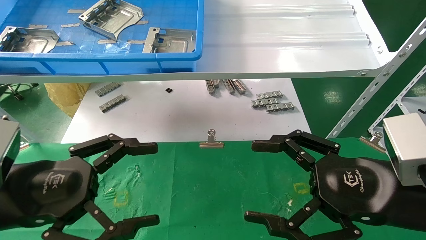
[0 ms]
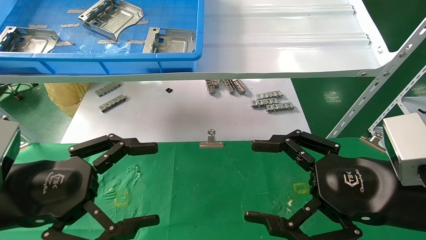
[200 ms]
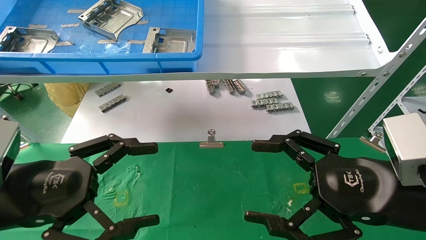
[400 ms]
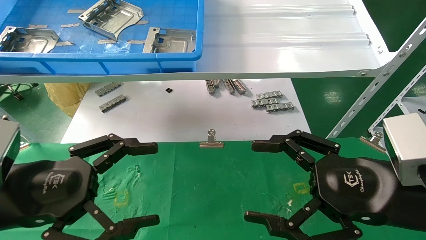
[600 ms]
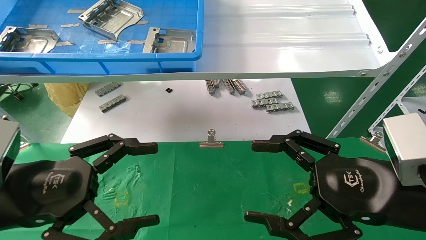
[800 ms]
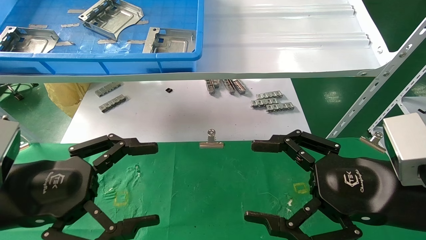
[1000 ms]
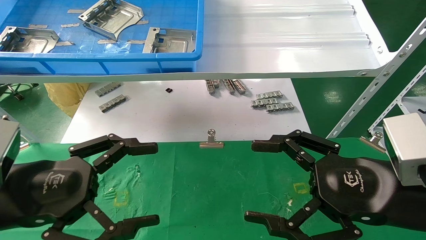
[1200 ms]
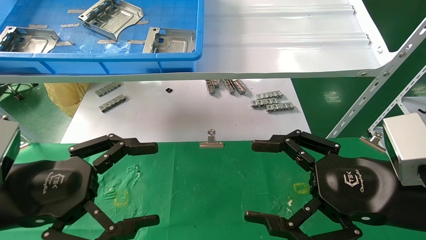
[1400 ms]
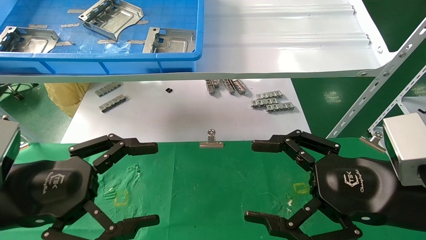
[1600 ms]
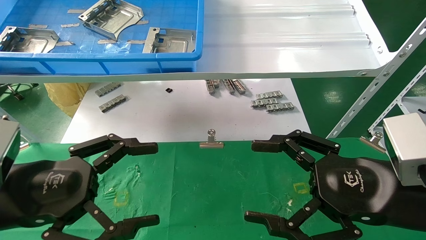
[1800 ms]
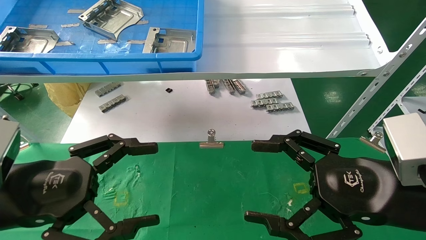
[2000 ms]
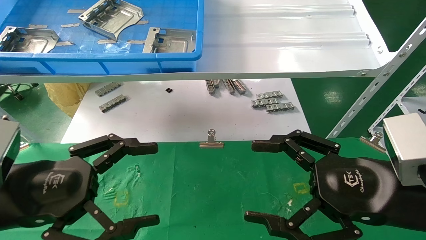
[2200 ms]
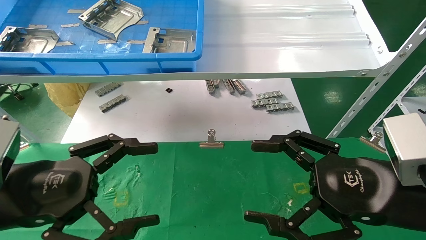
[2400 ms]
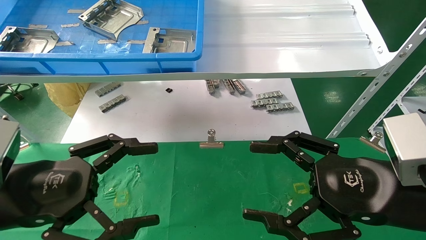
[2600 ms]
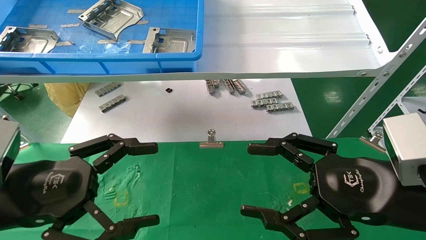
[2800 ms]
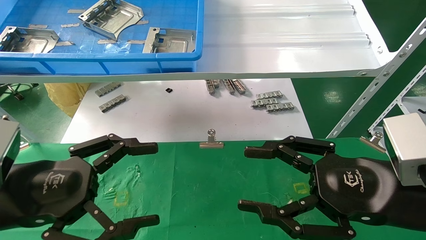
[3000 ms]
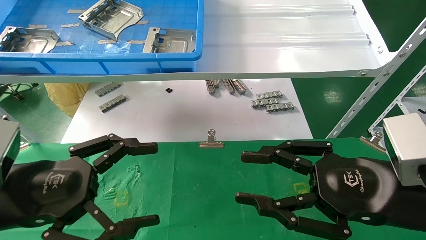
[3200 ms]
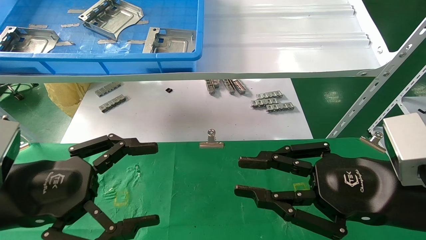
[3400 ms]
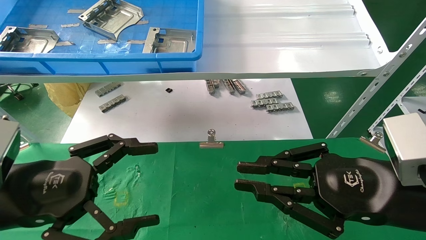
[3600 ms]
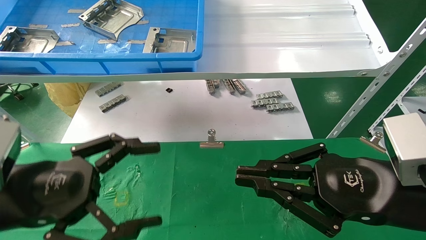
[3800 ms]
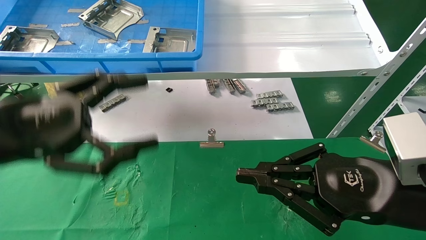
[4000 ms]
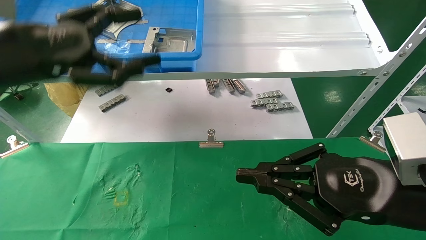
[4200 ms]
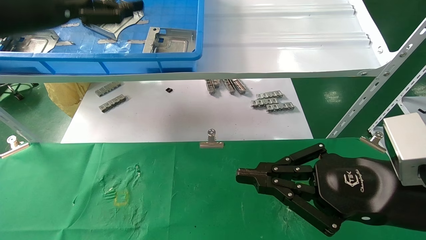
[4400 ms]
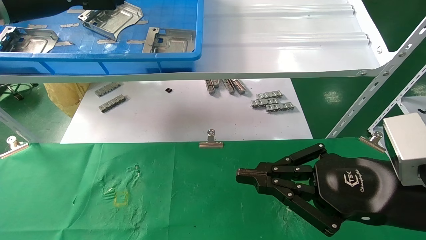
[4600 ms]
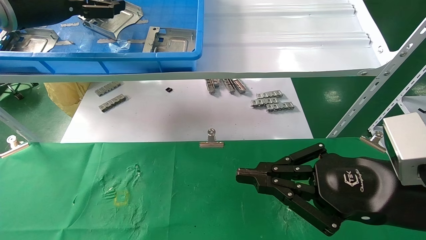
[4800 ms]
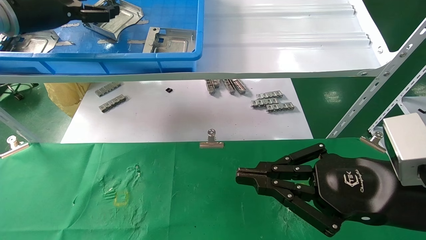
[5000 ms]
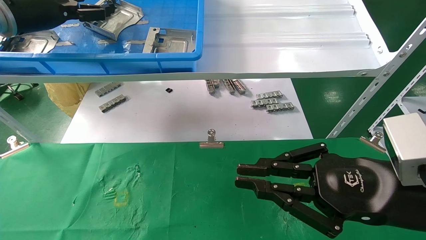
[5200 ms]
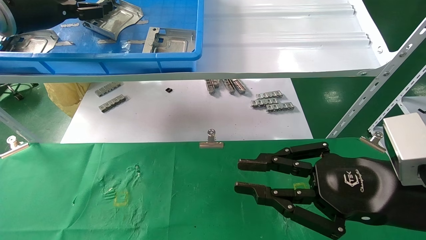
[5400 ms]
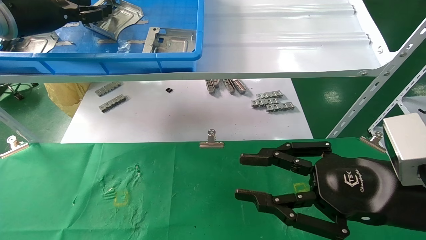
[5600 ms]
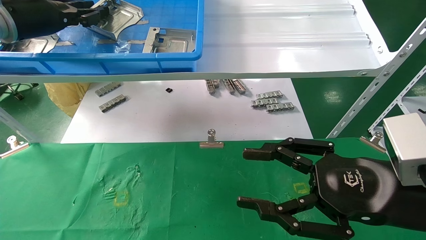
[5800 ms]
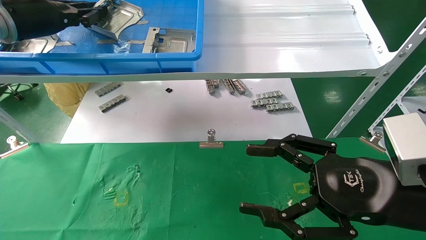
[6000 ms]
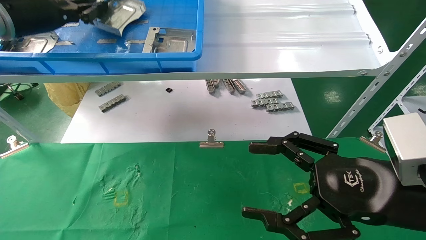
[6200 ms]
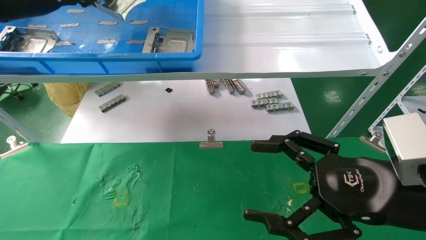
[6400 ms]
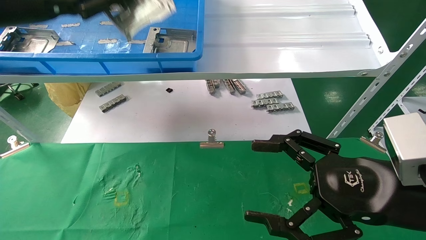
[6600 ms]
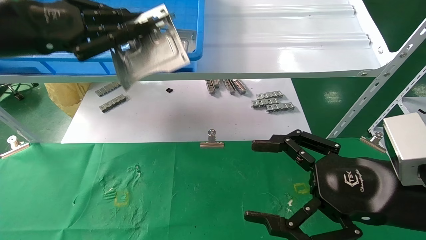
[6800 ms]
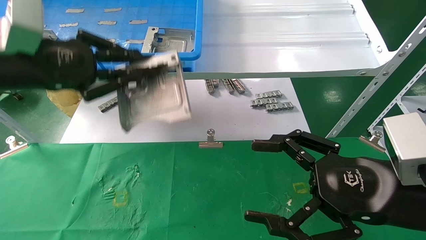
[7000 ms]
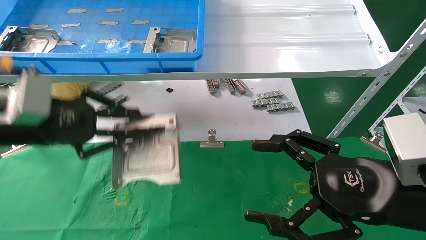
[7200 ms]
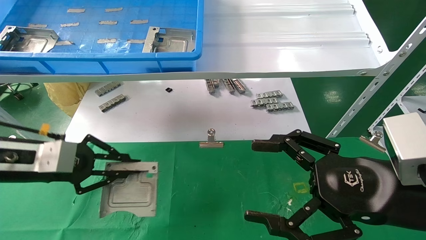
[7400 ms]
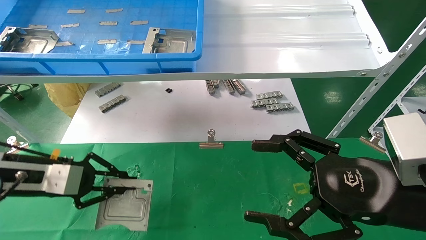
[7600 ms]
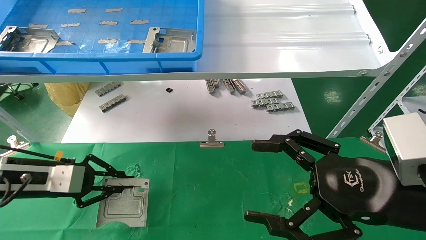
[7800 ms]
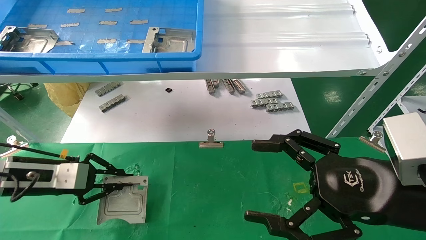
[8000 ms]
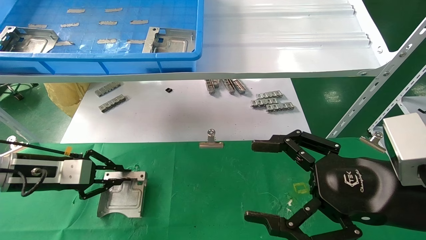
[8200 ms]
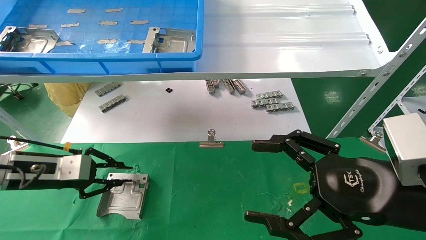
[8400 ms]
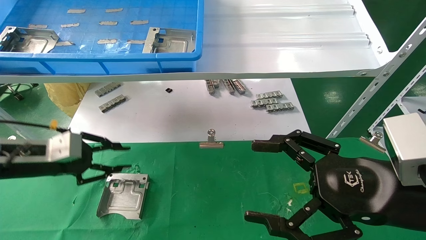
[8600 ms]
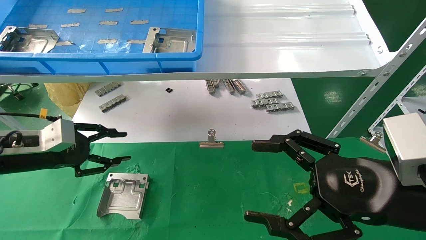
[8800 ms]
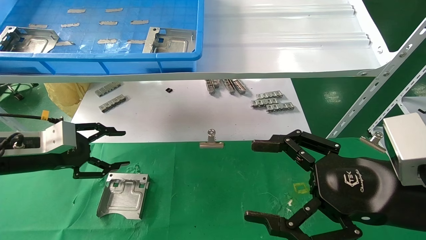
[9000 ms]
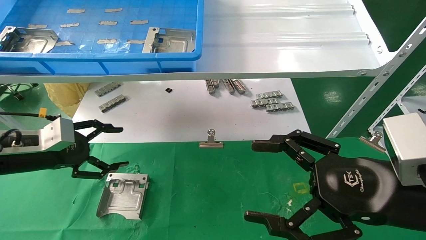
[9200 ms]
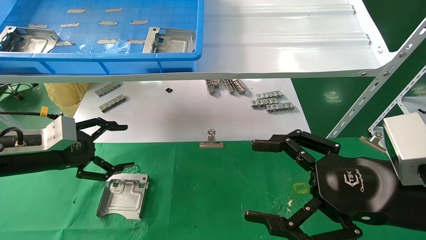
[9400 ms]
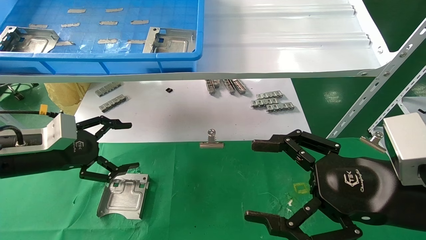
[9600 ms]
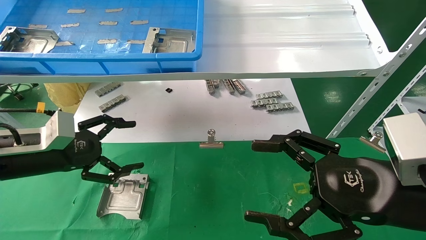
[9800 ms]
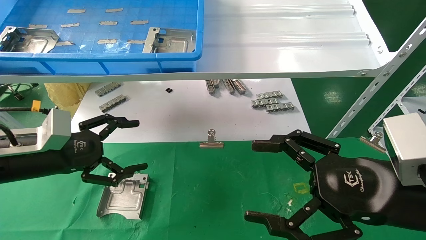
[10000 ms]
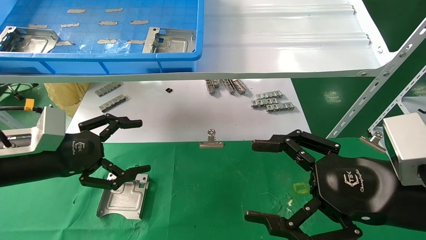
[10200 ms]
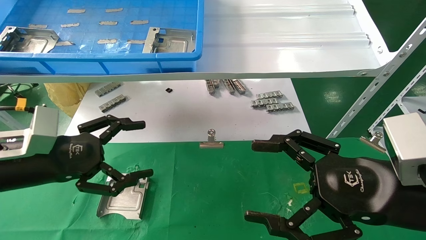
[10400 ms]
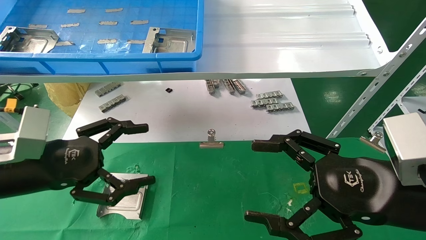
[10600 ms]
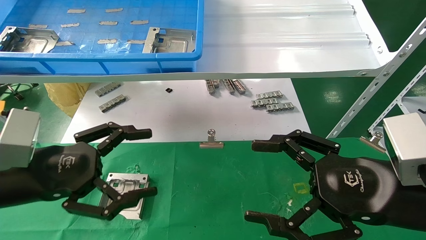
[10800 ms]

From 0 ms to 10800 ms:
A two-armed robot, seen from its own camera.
Task of the whole recording: use the mechanical arm to pick up the parts and place them on the table.
Step, from 4200 ms to 6000 ms: Pick up the hard drive bracket from the feeding area.
Step, from 6200 ms to 8200 ms: Place the hard drive bracket into the box.
From 0 ms to 3000 ms: Both grippers stay put.
From 3000 ms to 4600 ms: The right gripper closes its fingers; the left gripper is displaced upward and forward by roughly 30 cm.
From 4600 ms to 6200 ms: The right gripper opens up, while the left gripper closes up.
From 6200 ms to 7800 ms: The left gripper shifts approximately 25 cm downward.
From 7800 ms to 9200 ms: The left gripper opens up.
From 9200 ms to 10800 ms: The left gripper travels backward and to the right by some 15 cm.

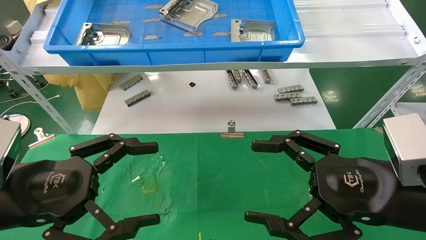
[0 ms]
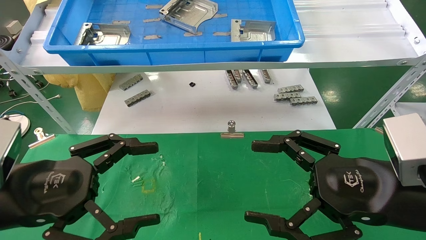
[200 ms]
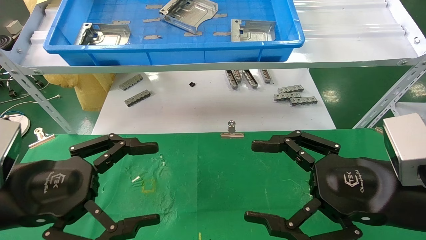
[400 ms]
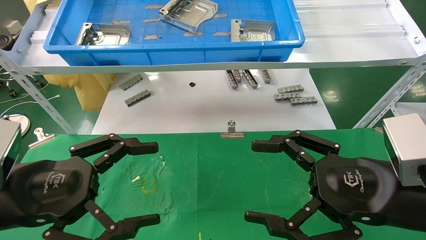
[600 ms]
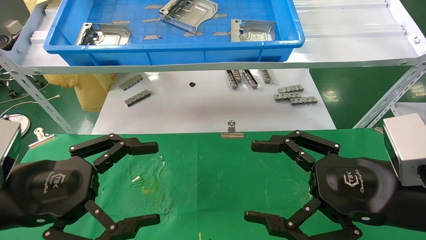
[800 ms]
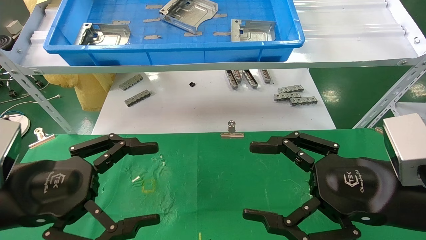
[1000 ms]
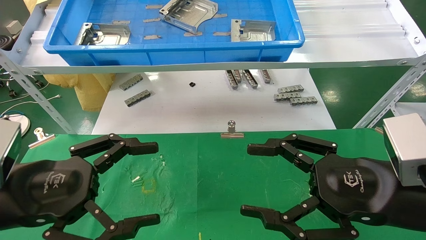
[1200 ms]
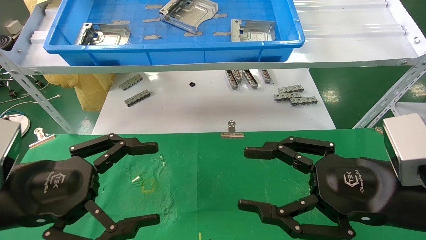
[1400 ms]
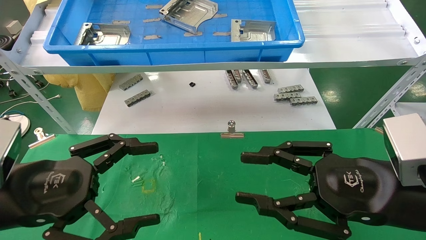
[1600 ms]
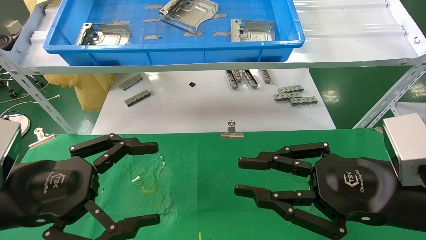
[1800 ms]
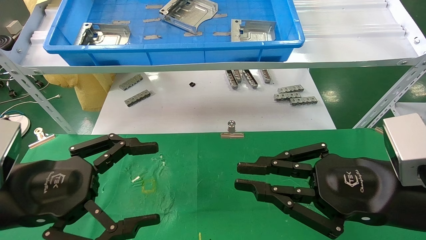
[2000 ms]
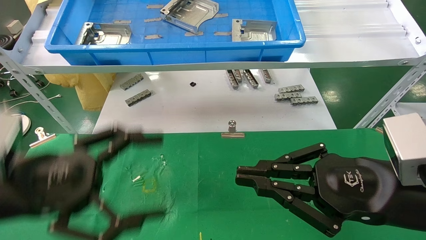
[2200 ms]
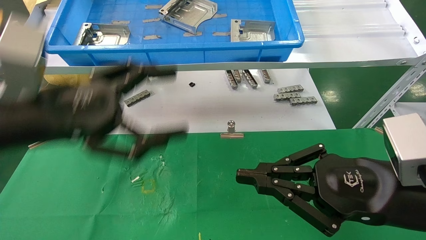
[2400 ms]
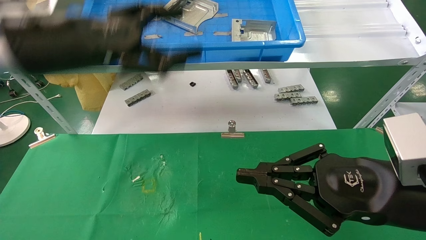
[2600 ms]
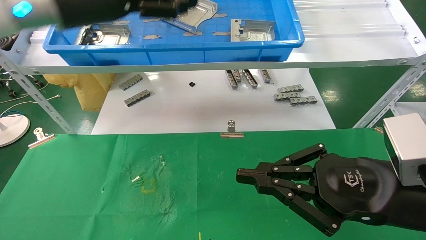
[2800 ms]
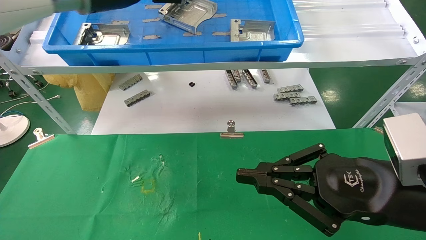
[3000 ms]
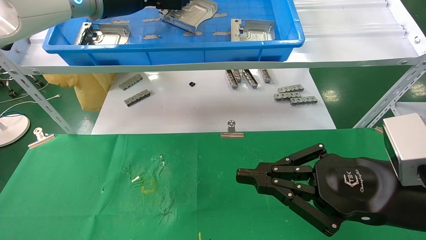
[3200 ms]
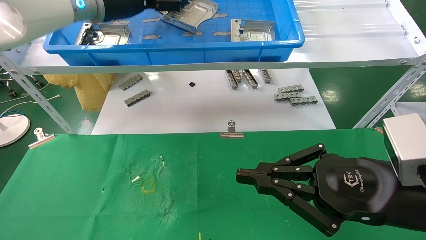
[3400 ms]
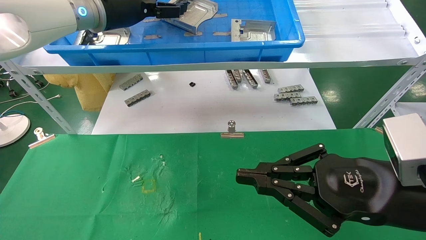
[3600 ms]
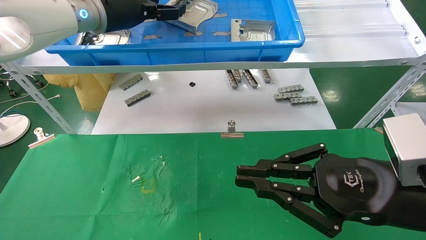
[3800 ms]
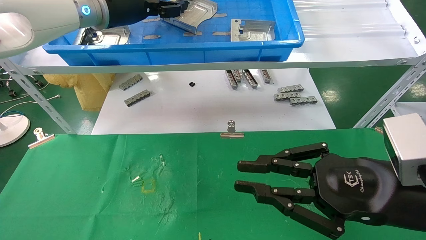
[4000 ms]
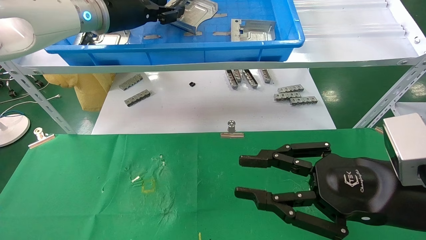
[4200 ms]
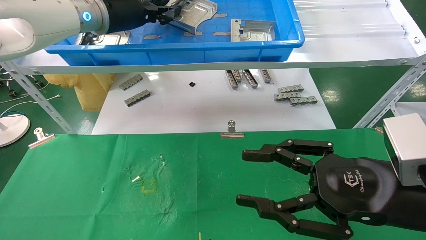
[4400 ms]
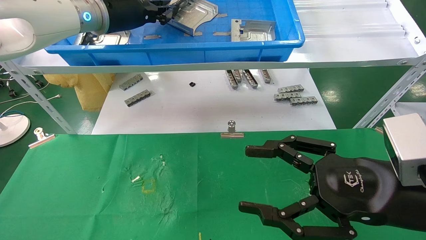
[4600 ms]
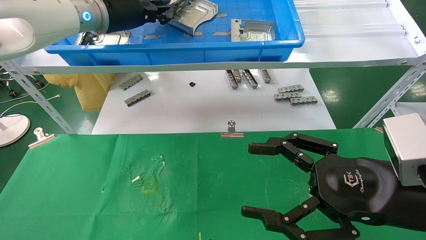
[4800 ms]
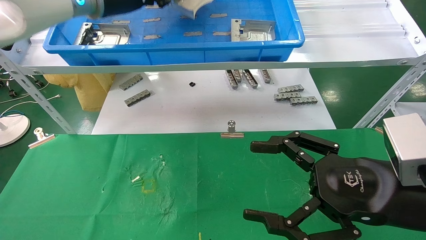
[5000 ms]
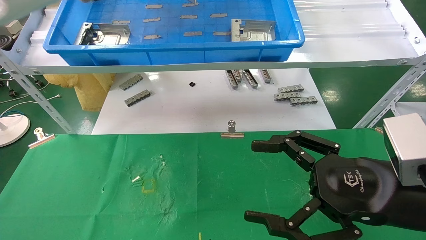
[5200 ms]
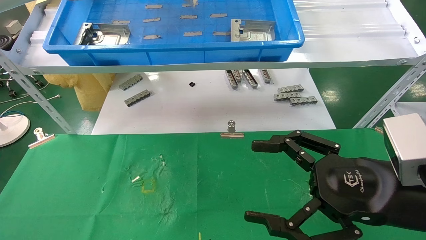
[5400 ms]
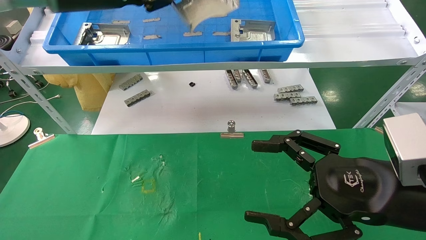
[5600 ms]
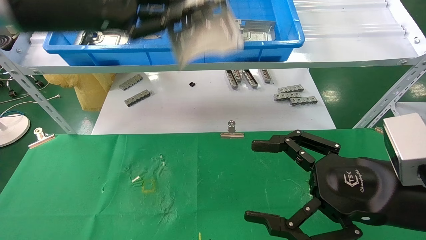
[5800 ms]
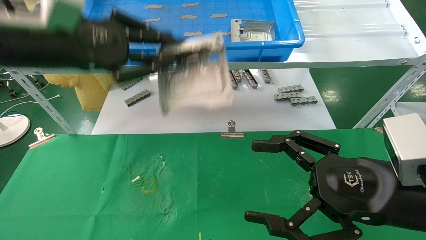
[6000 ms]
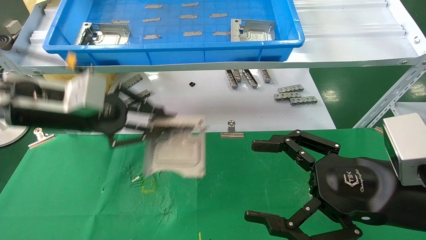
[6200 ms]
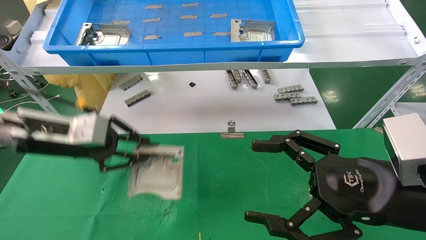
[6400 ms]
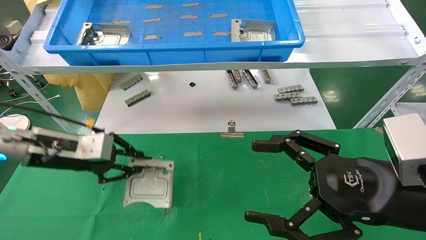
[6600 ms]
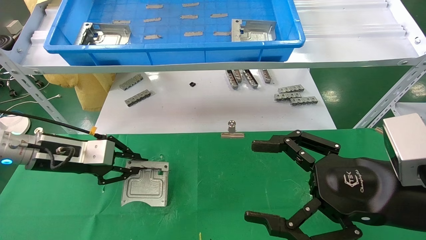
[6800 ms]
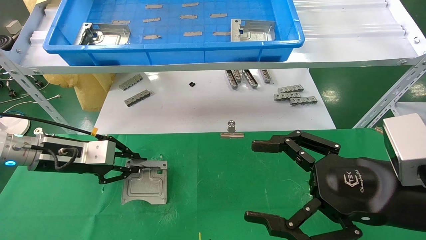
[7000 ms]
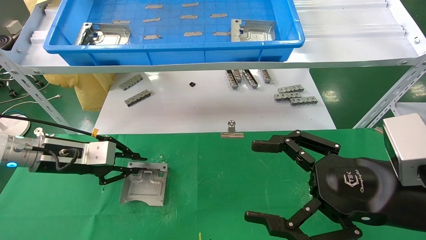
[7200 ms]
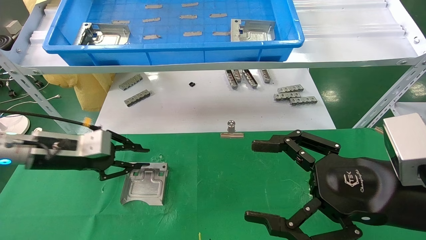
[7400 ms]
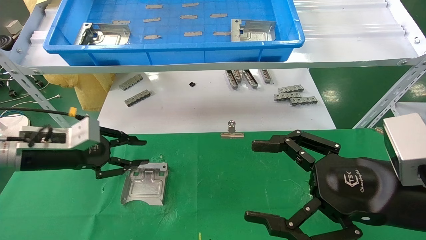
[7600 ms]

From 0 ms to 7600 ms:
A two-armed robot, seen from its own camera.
Task of the whole recording: use the mechanical arm to pick up the parts and place them on the table.
Step, from 2600 ms to 4600 ms: Pick up the hard drive bracket from the feeding area.
Step, from 4800 ms to 7600 ms: Place the hard drive bracket into the box.
From 0 ms to 1600 ms: The right gripper closes its fingers.
From 1600 ms to 3000 ms: The right gripper closes. Meanwhile the left gripper goes about 30 cm upward and forward.
From 3000 ms to 4600 ms: The right gripper opens; the left gripper closes.
From 4600 ms to 6000 ms: The left gripper heads backward, downward and to the left, covering about 15 cm, while the right gripper opens its fingers.
From 6000 ms to 7600 ms: The left gripper travels downward and to the left by some 20 cm.
